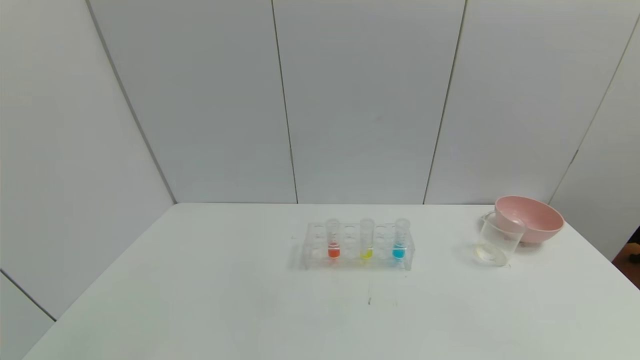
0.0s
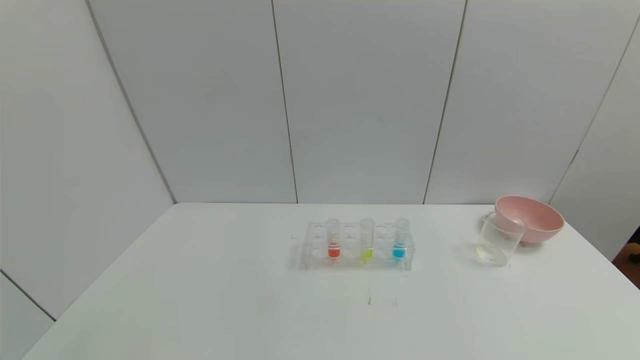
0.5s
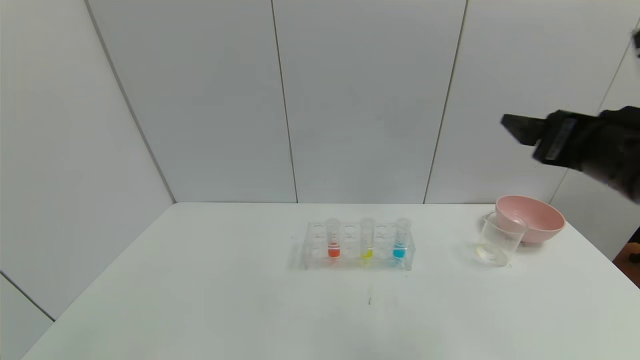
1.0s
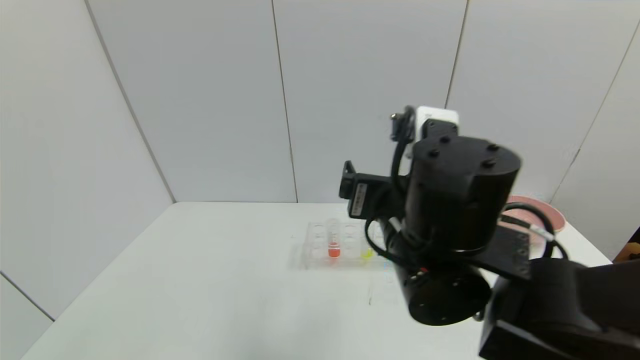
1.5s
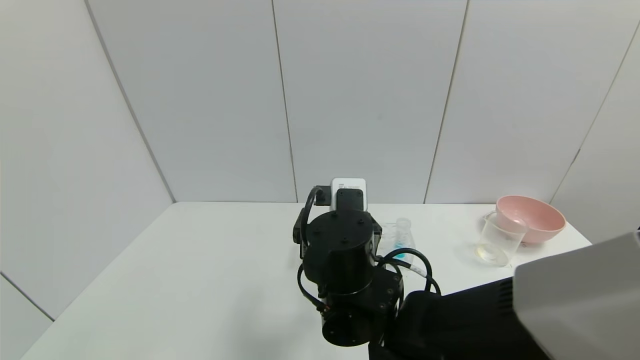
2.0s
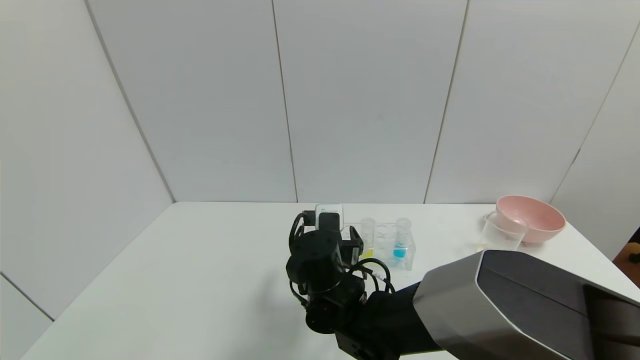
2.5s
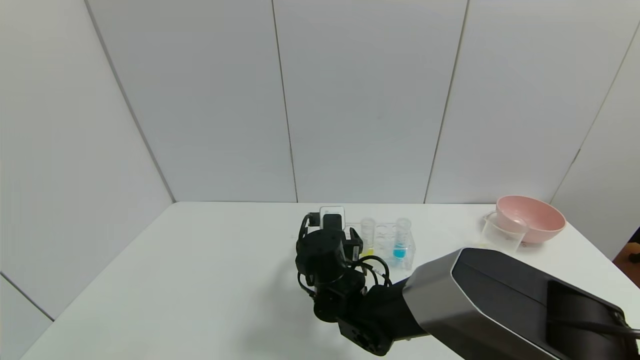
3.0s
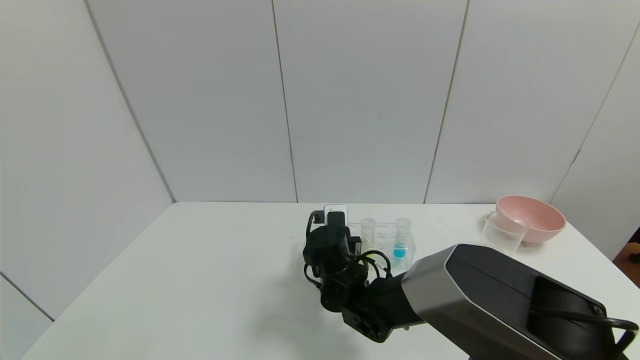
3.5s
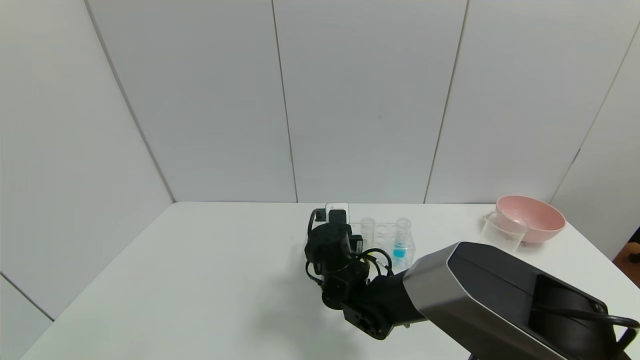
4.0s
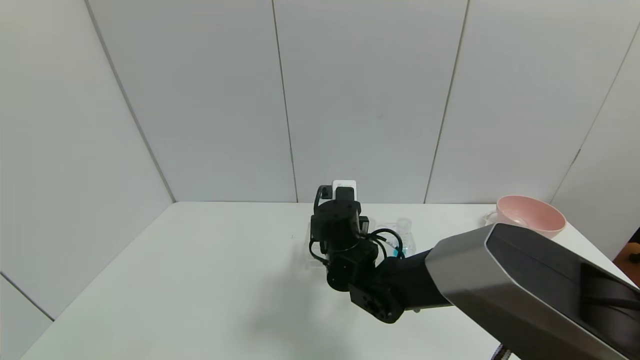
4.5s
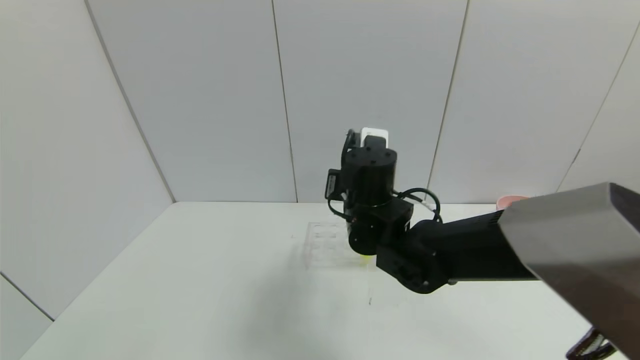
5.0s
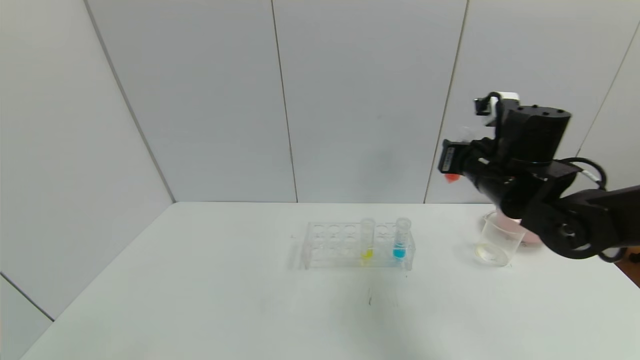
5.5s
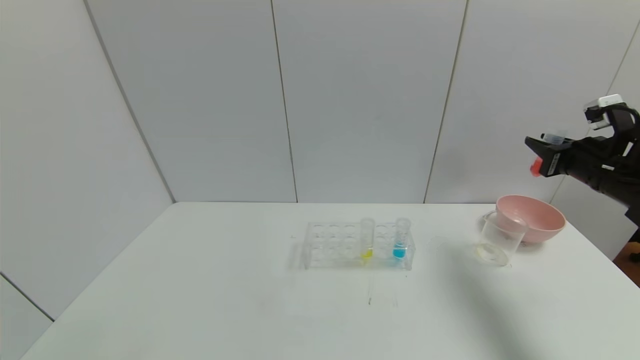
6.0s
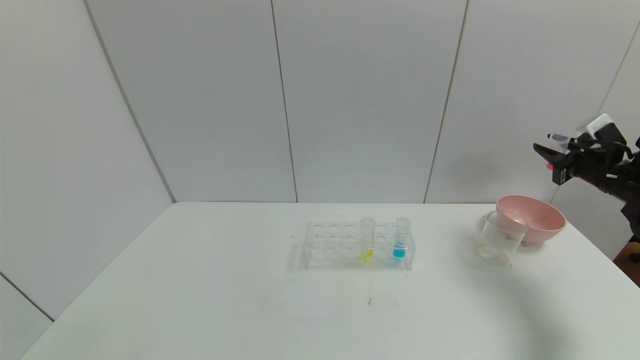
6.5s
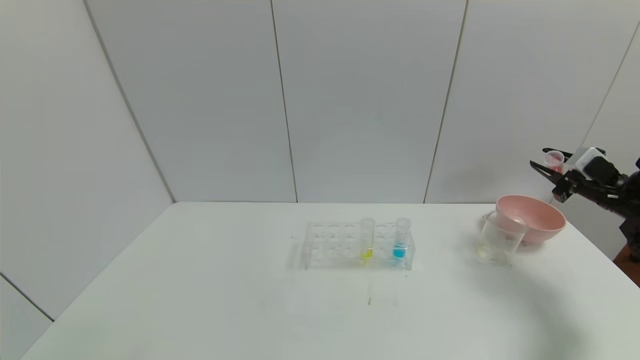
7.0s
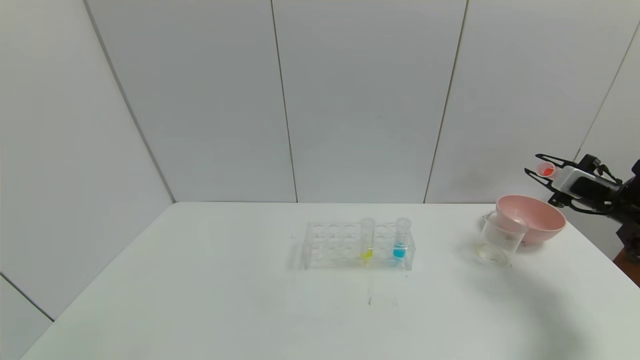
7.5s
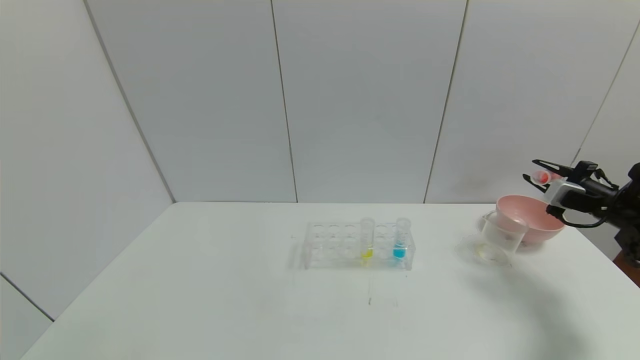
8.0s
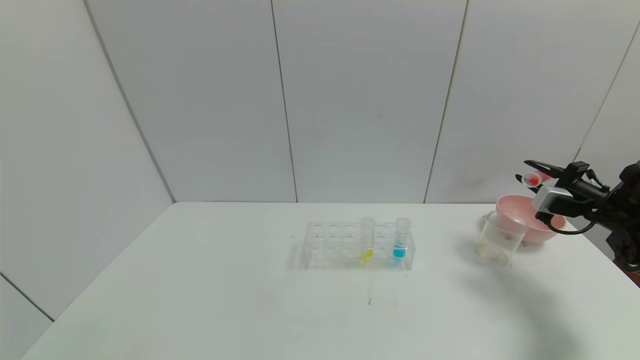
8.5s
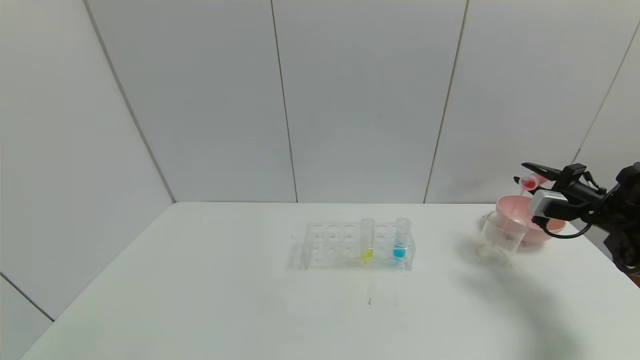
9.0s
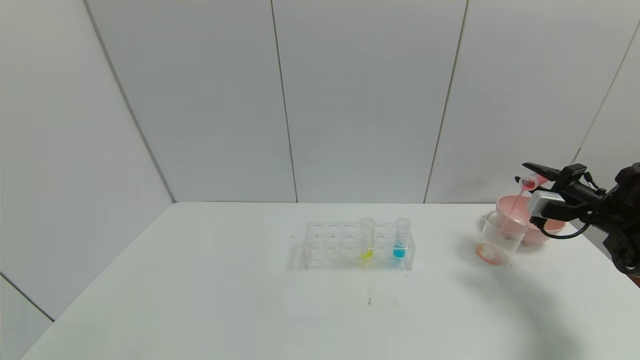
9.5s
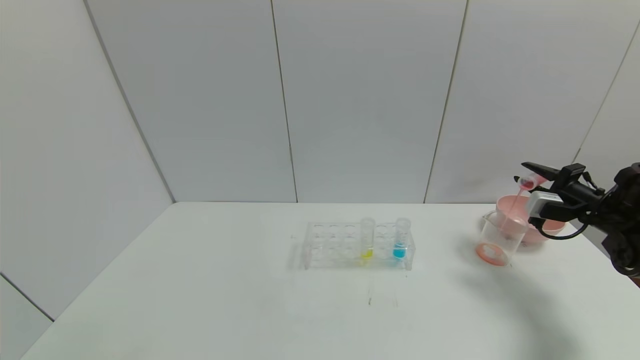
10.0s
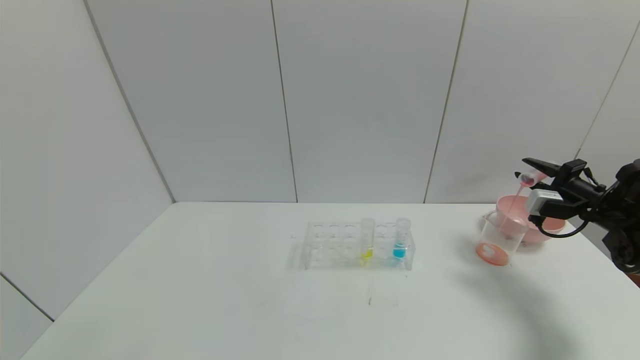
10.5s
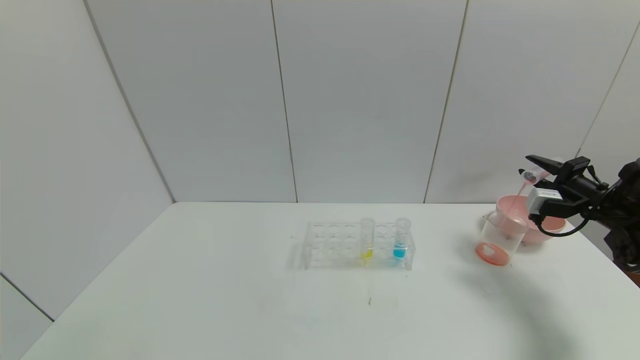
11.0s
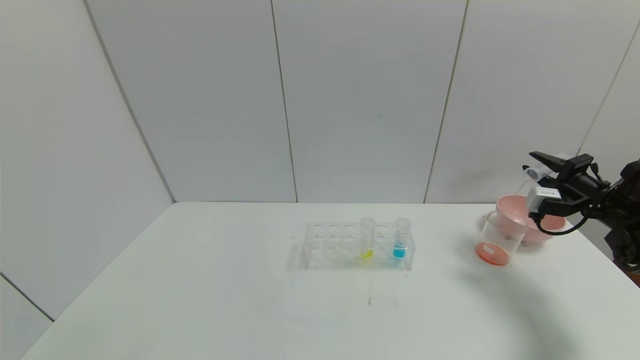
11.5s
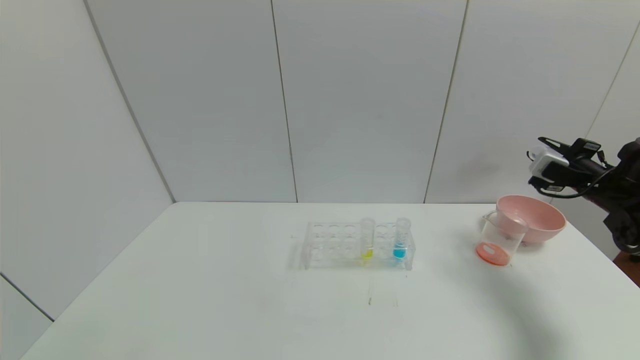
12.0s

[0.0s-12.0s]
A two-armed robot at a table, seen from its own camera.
Task of the whole recording: pick up the test tube with yellow pigment and the test tube with red pigment by grippers and pour them into the beaker.
Step, 0.0s to 3.5s: Grasp the red reagent with the right gripper.
Step, 4.0s to 11.5s: Pour the red reagent into the graduated cylinder with the right gripper.
0.0s to 2.0s: The right gripper travels to the left and forward by approximately 50 cm.
2.0s to 4.0s: The right gripper heads forward and downward, covering roughly 15 cm, and closes up.
4.0s to 6.0s: The right gripper travels to the right by about 40 cm.
6.0s to 8.0s: The right gripper heads downward and to the right, covering approximately 10 cm.
8.0s to 10.0s: There are only small adjustments of the grippers.

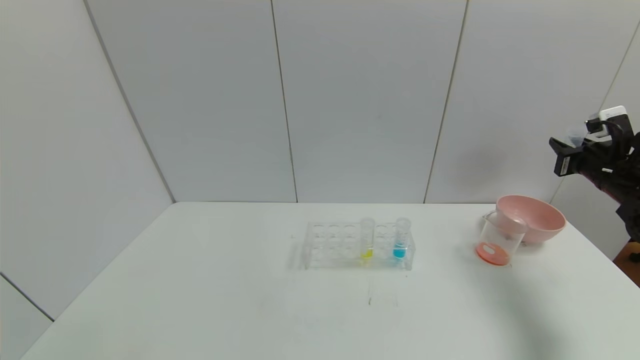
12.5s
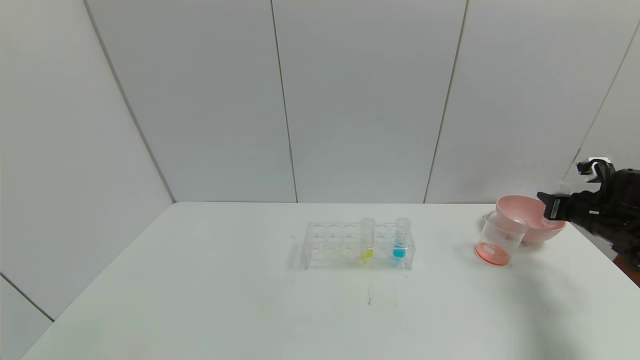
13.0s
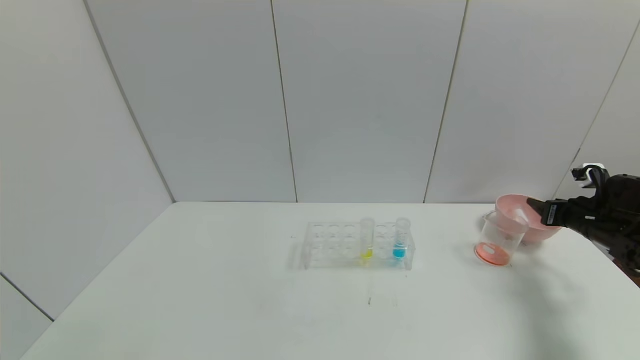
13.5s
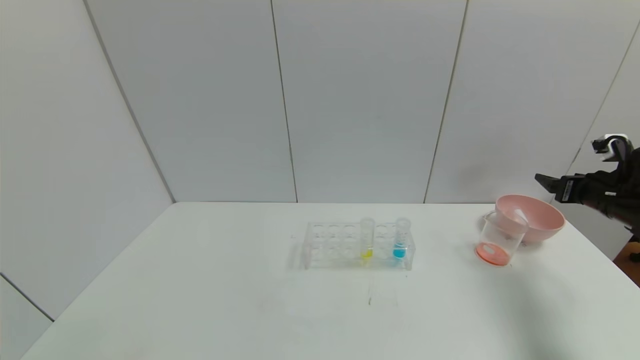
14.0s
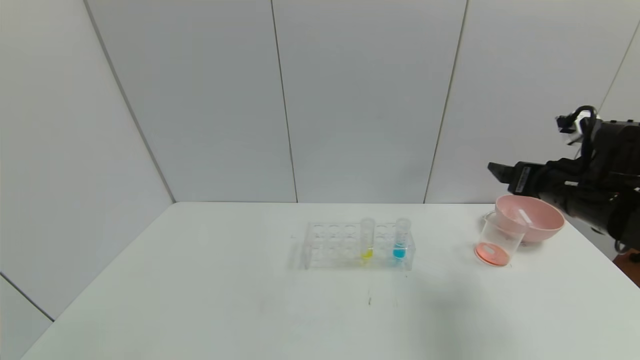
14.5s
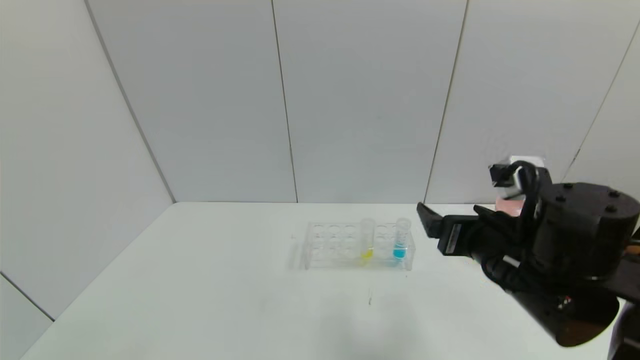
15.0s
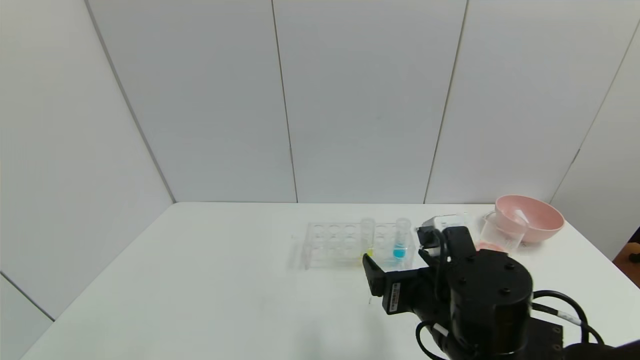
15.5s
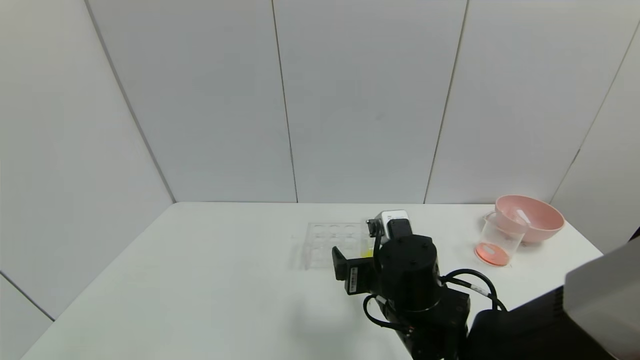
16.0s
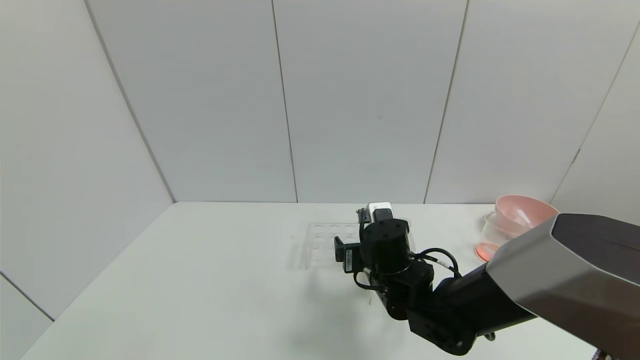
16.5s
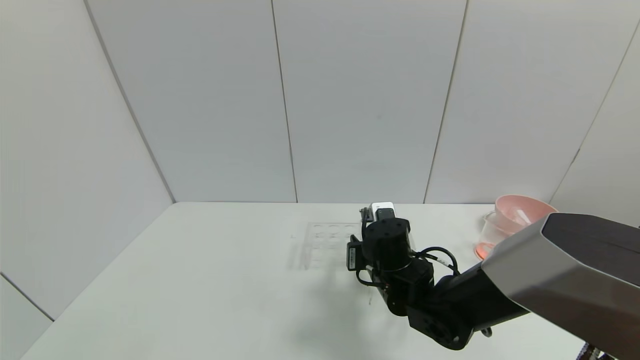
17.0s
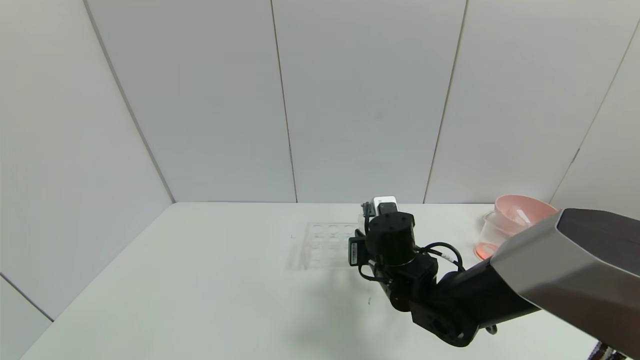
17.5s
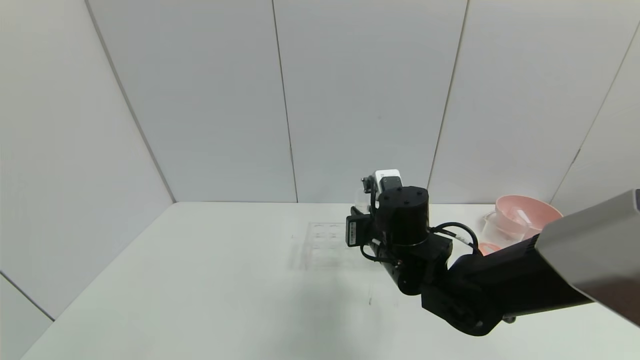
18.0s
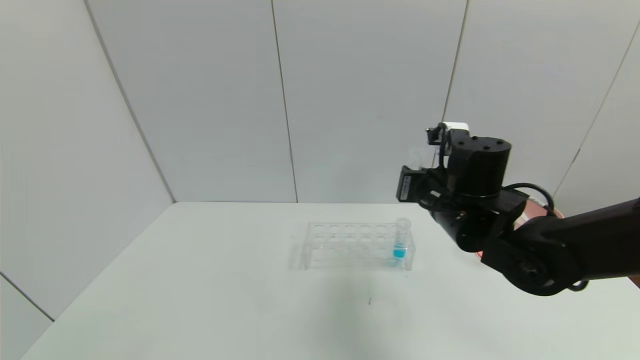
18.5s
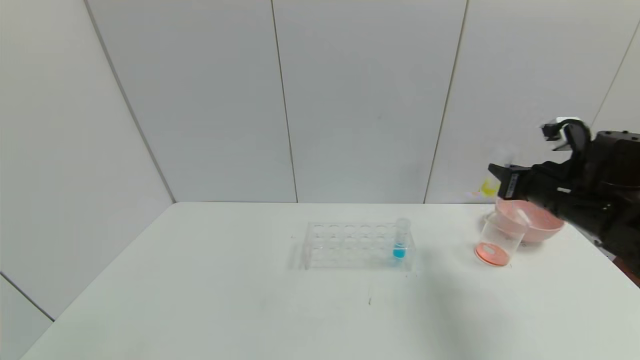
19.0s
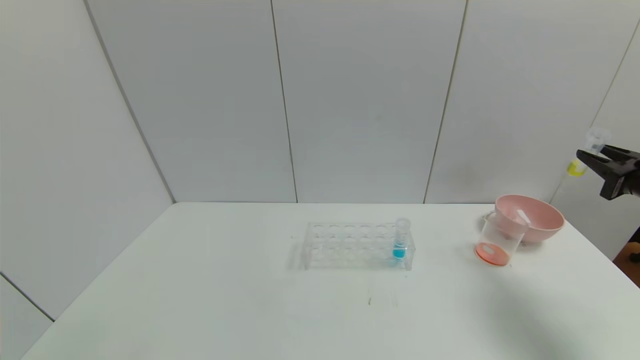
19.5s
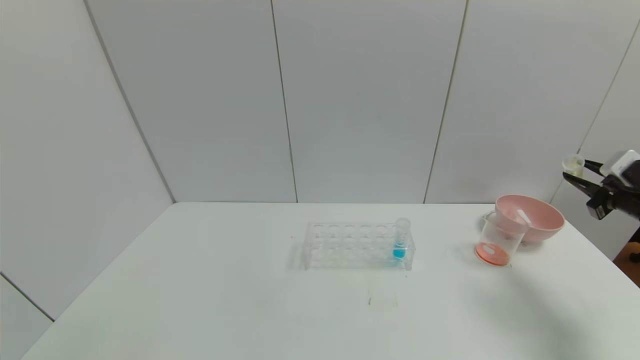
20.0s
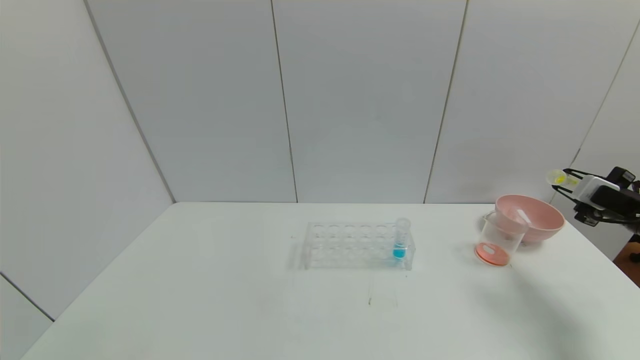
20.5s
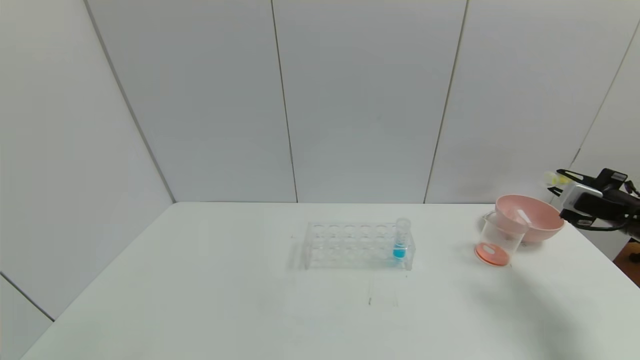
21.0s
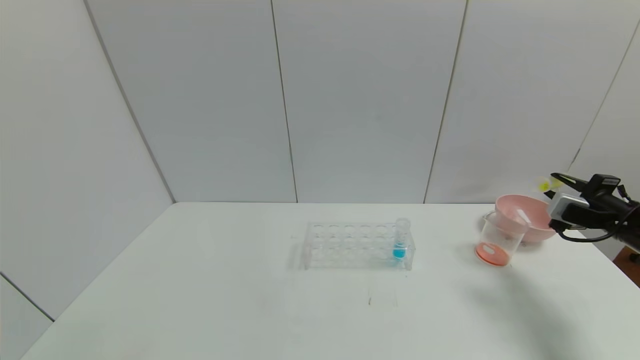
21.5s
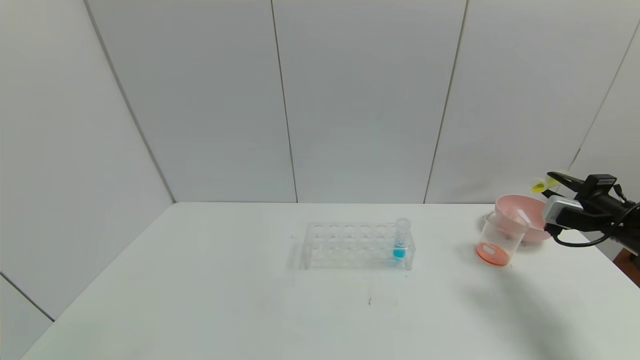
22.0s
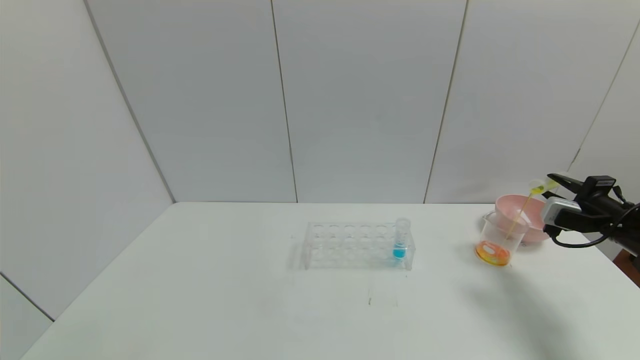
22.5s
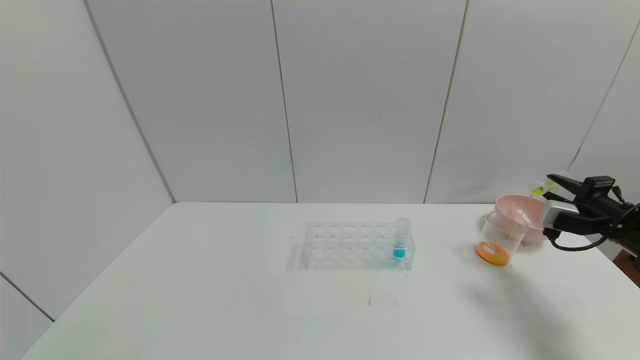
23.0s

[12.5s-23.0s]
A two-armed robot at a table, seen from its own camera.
Task of the whole recording: pick up the test tube with yellow pigment and the test tube with red pigment by grippers and pour them into the beaker.
Step, 12.5s to 13.5s: Place the test tube into the bowl with the right gripper.
Step, 14.0s to 17.0s: Grasp the yellow reagent with the right gripper.
12.5s to 14.5s: The right gripper goes roughly 20 cm to the left and backward, and opens its fingers.
14.5s to 16.5s: The right gripper heads to the left and downward, covering some 25 cm.
16.5s to 19.0s: The right gripper moves to the right and upward, some 30 cm, and closes its fingers.
19.0s to 21.0s: The right gripper shifts roughly 15 cm to the right.
21.0s to 23.0s: The grippers move only a little.
